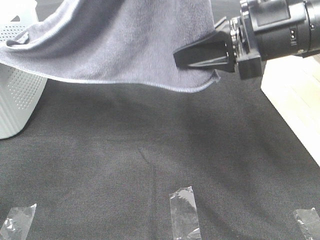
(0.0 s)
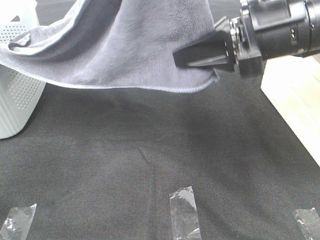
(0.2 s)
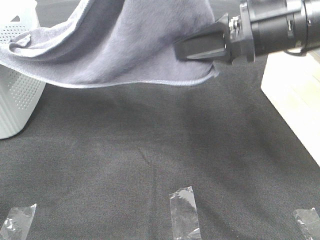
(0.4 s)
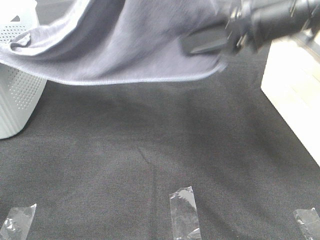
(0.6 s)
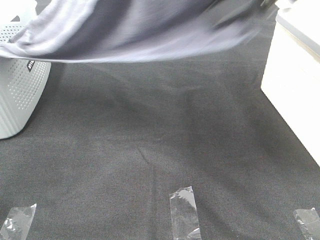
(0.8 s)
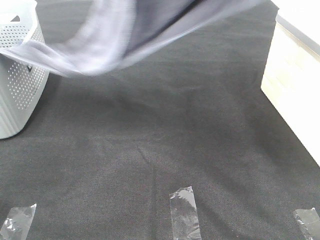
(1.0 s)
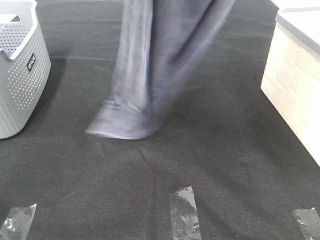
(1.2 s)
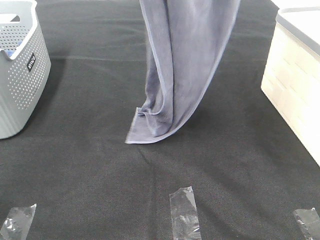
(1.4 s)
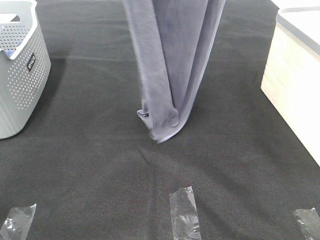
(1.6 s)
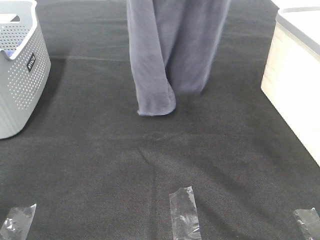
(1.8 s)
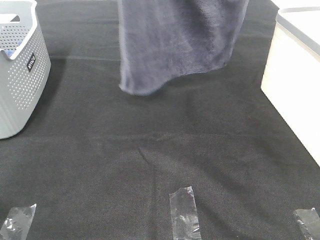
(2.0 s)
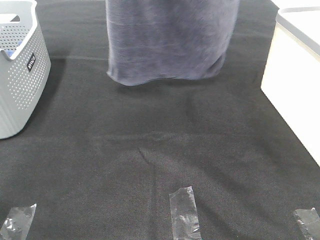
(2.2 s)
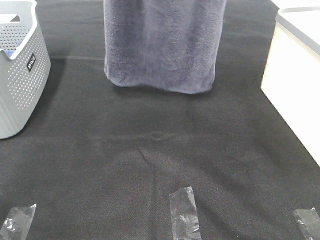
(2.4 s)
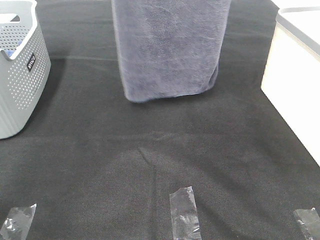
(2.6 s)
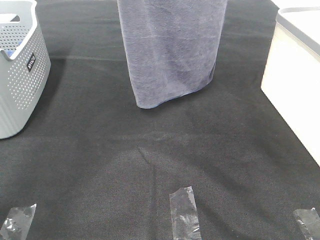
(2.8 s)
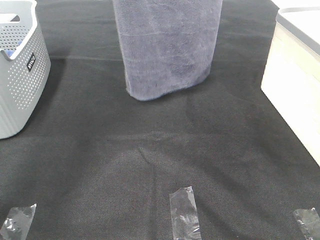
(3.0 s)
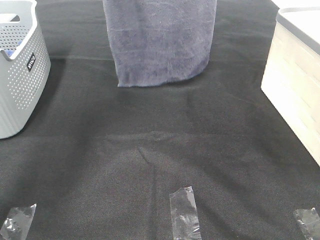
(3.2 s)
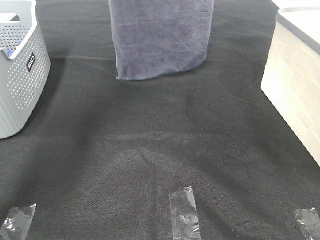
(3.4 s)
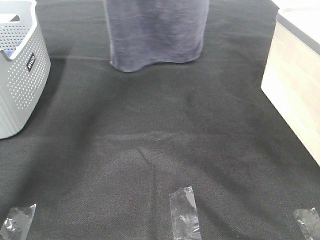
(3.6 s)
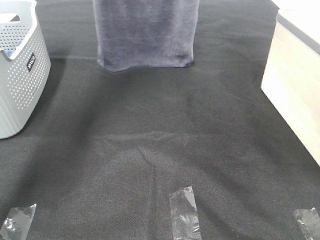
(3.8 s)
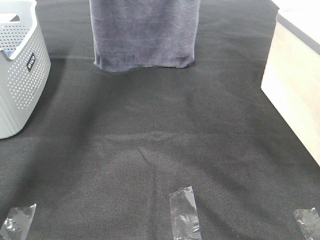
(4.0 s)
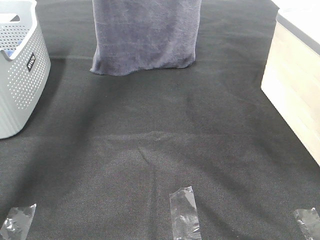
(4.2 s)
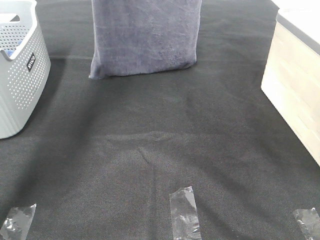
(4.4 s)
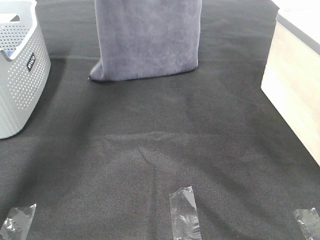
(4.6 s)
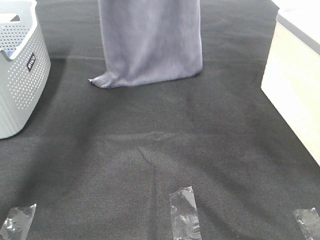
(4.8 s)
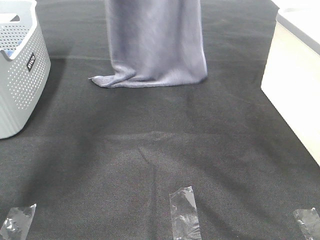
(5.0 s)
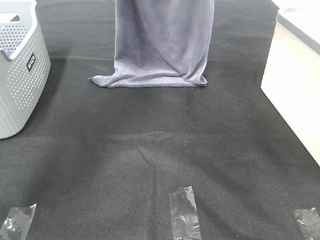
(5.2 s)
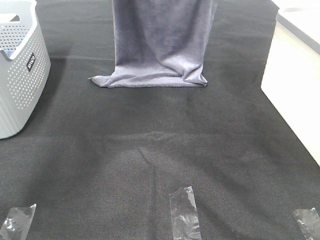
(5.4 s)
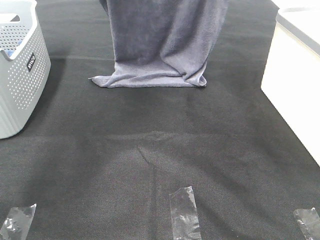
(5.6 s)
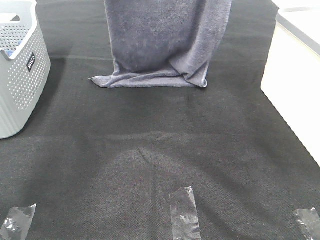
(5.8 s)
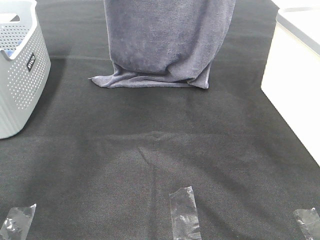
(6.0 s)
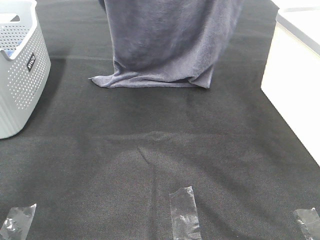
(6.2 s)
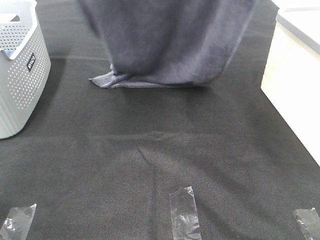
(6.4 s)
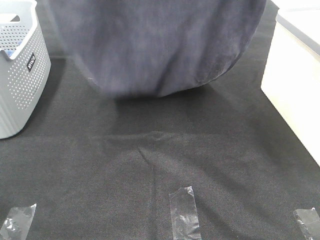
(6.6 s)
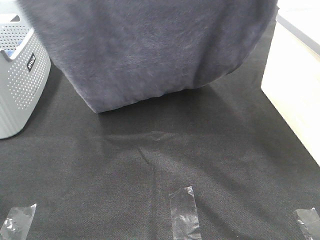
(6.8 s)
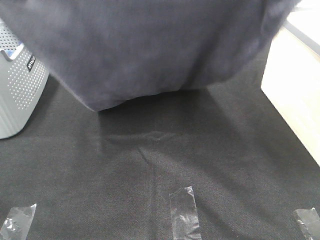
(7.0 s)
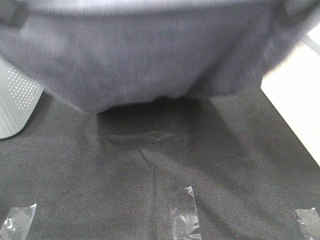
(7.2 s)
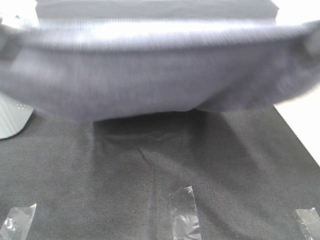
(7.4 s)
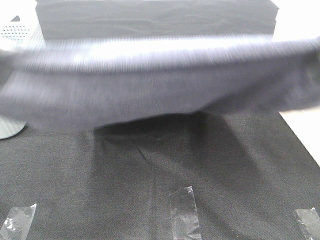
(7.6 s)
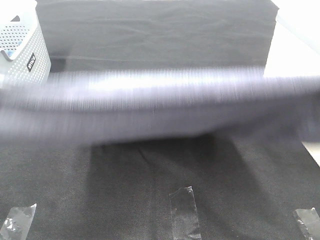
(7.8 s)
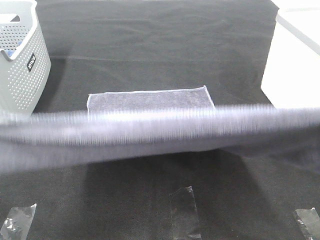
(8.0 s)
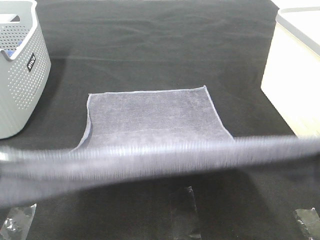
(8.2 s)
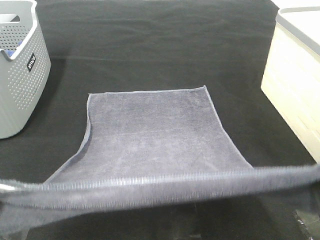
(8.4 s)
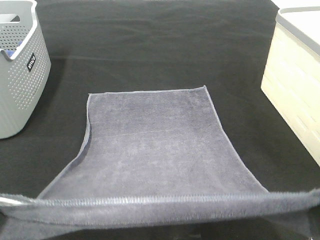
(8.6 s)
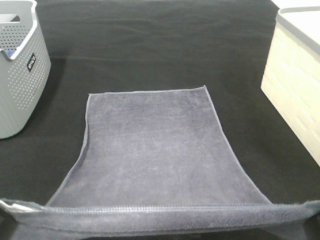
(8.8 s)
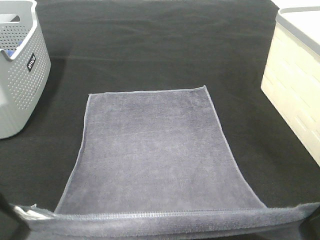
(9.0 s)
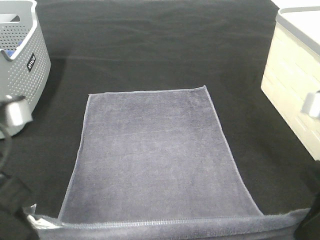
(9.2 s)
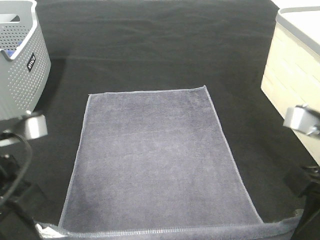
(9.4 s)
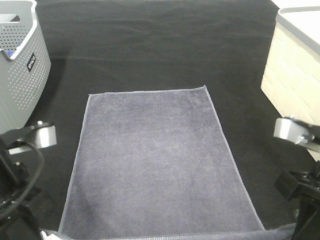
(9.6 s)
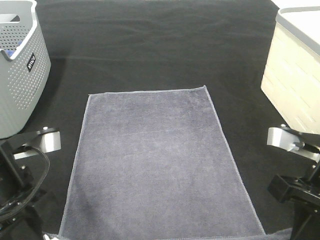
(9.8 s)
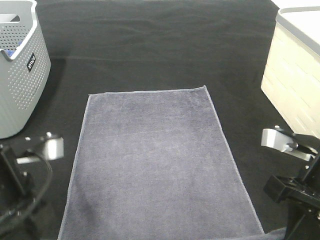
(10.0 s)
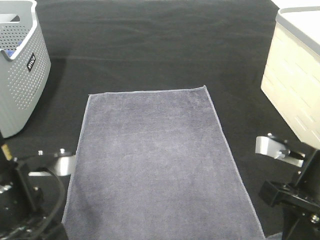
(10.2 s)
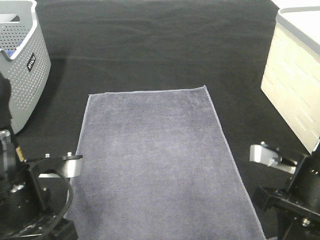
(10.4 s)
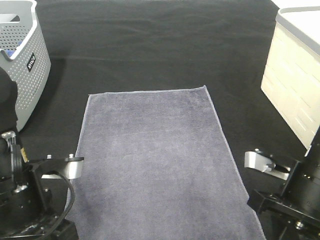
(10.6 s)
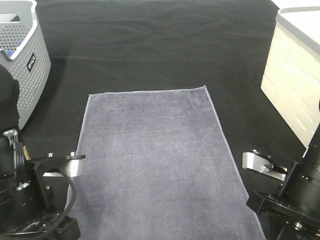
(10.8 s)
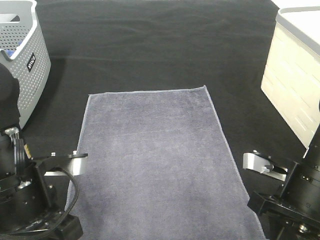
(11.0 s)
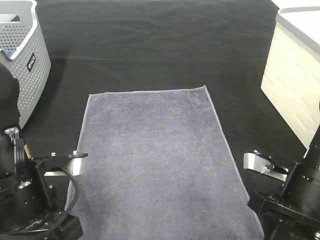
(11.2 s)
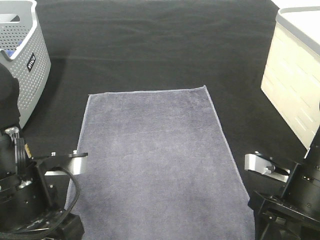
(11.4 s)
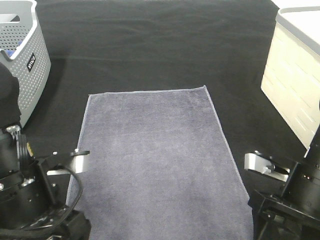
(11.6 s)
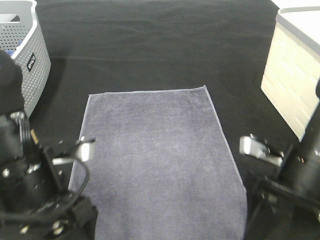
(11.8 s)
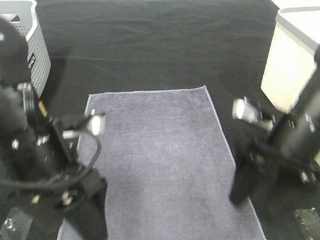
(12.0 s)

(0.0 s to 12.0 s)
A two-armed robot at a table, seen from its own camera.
Task of the whole recording: Remove the towel and place it.
Step, 1.6 s - 7.0 s: Left hand: spread the grey towel flat on the table.
Step, 1.6 s - 7.0 s: Right hand: spread the grey towel flat on the table.
0.0 s - 1.6 s: The right gripper moves upward, about 20 cm. Meanwhile the left gripper is displaced forward and to the left by roughly 10 cm.
1.6 s - 3.0 s: The right gripper is displaced forward by approximately 10 cm; the left gripper heads forward and downward, covering approximately 15 cm.
3.0 s - 4.4 s: Both grippers travel together forward, roughly 5 cm.
4.4 s - 6.0 s: Both grippers move backward, roughly 10 cm.
6.0 s - 7.6 s: The grippers both shift backward by some 30 cm.
7.6 s - 9.0 s: Both grippers travel together downward, about 10 cm.
9.0 s - 10.4 s: The right gripper is displaced downward and forward by about 15 cm. The left gripper is displaced downward by about 10 cm.
10.4 s - 12.0 s: The right gripper is displaced forward by approximately 5 cm, and opens. Meanwhile the left gripper moves approximately 5 cm, and opens its fingers.

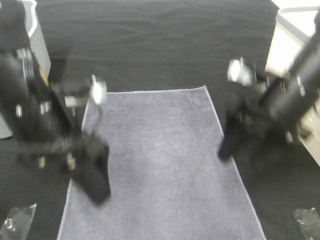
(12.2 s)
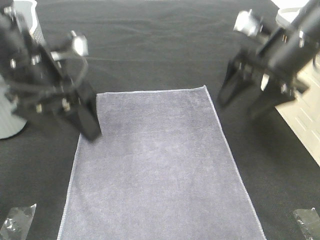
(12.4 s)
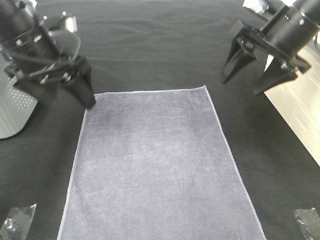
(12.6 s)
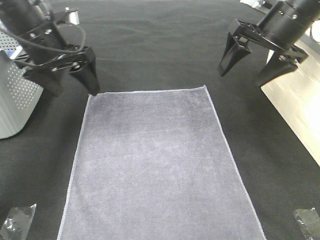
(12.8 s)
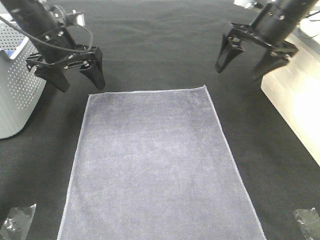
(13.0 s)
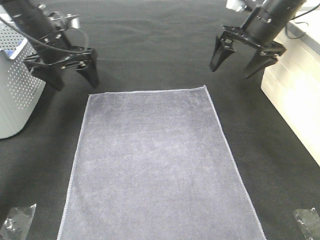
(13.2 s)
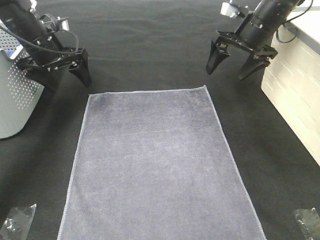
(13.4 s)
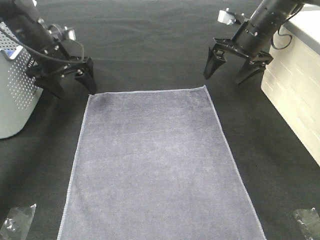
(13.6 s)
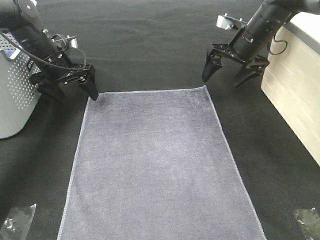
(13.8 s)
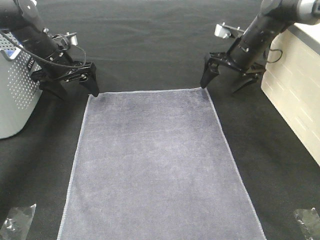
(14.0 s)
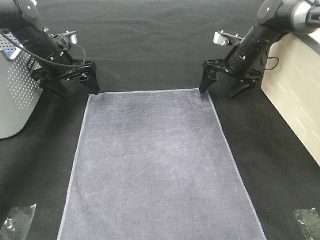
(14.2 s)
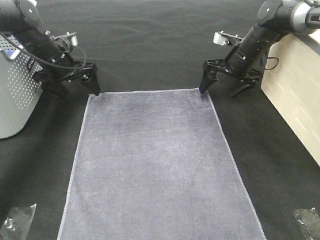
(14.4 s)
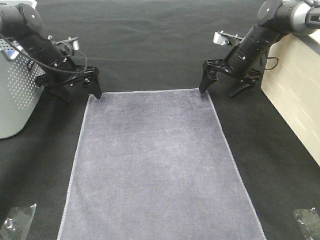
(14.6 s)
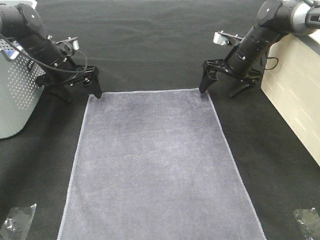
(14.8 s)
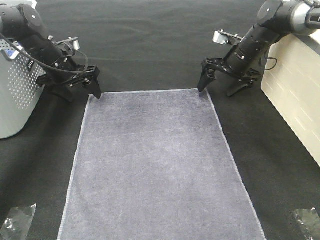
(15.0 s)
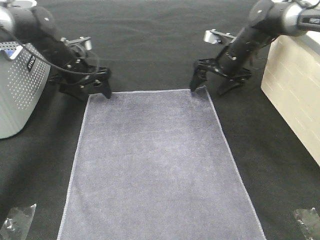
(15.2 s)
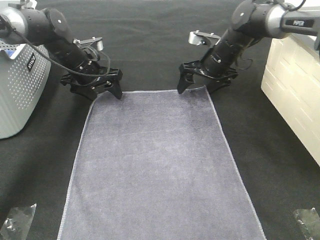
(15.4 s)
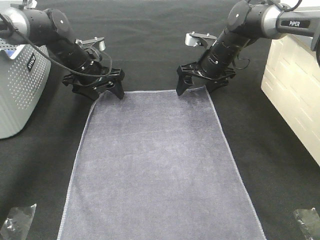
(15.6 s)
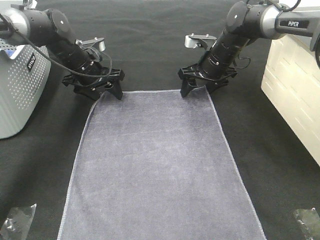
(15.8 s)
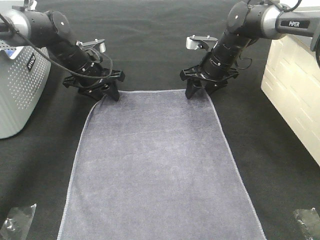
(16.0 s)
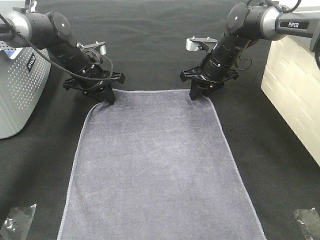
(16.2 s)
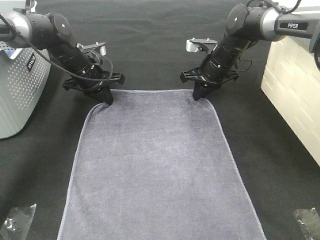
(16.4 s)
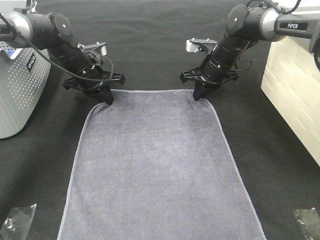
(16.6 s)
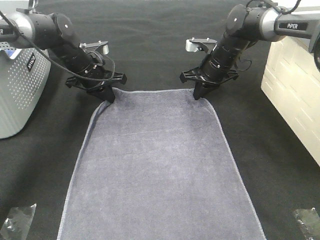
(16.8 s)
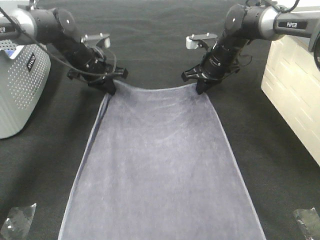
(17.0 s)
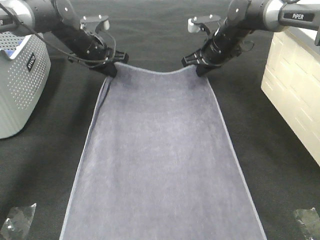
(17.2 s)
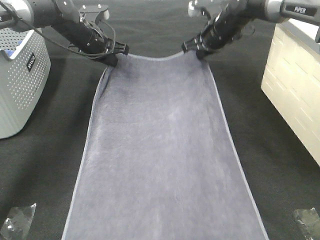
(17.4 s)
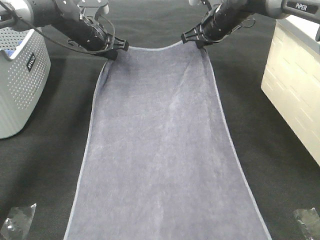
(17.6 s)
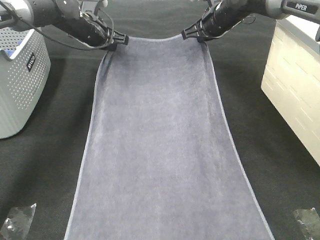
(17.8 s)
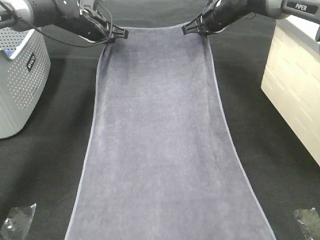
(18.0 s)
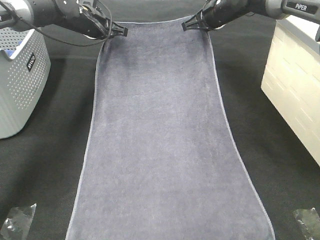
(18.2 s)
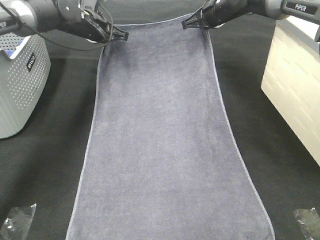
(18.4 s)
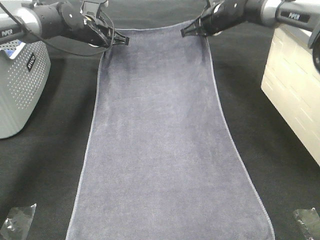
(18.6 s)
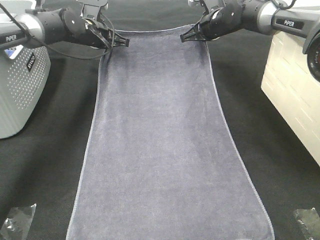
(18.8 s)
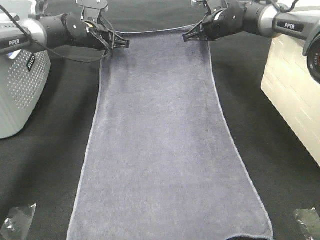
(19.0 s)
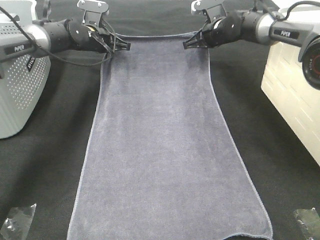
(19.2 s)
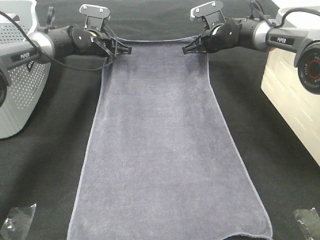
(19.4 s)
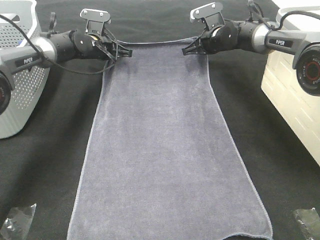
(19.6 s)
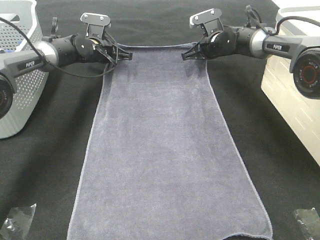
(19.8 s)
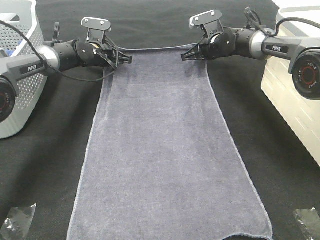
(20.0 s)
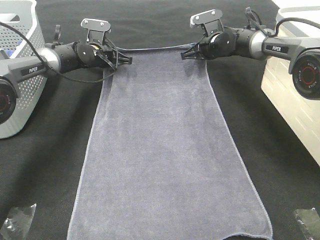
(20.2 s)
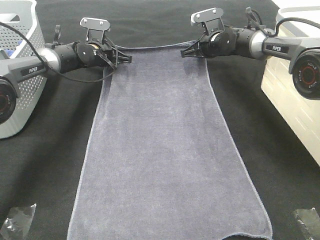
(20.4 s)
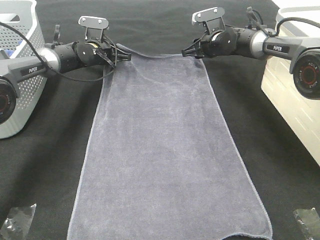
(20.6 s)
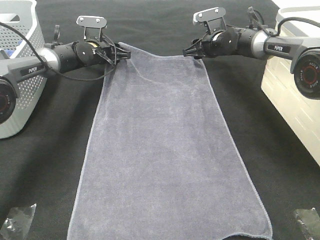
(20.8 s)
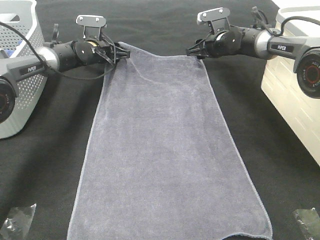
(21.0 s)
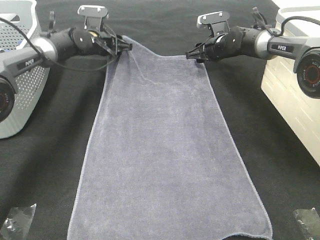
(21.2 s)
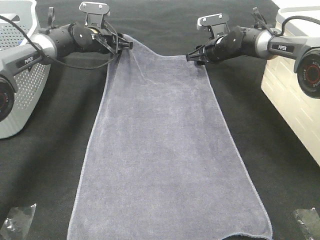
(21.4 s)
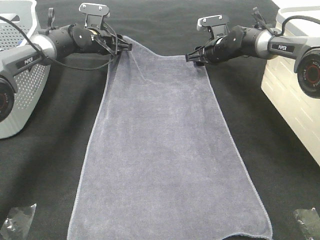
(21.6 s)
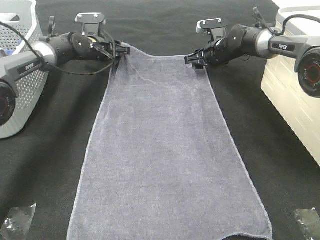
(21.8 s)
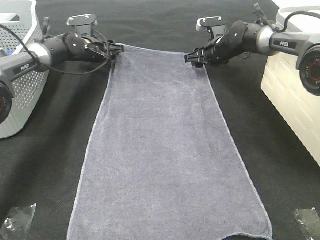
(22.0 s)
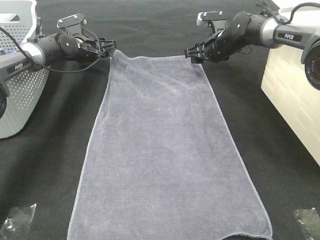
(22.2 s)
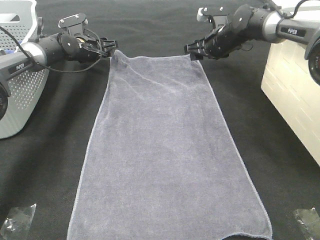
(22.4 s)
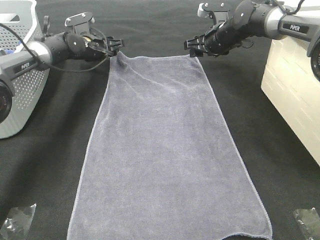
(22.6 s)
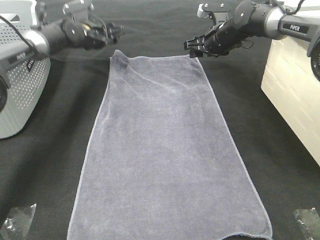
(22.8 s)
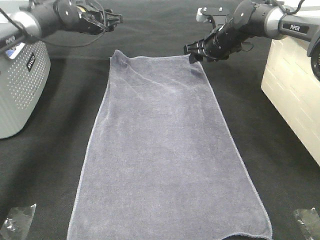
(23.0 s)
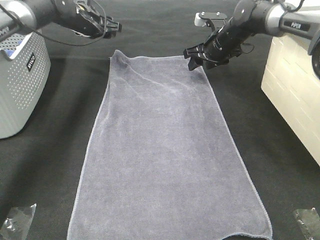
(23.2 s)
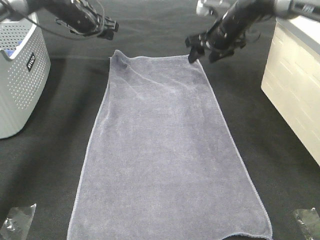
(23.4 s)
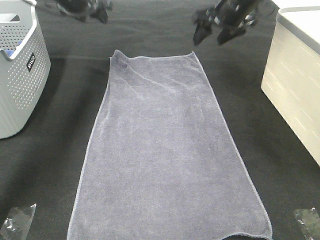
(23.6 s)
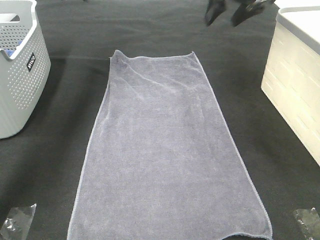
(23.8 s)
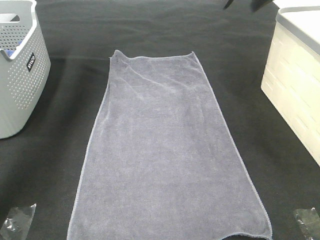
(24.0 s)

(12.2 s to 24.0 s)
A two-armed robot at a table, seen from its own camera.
Task of the whole recording: Remove the towel and place it.
Step, 12.2 s - 14.4 s: Right hand:adjust the gray towel.
Step, 12.2 s - 15.6 s: Left hand:adjust the gray towel.
12.2 s - 13.6 s: The grippers both shift forward by approximately 25 cm.
13.6 s - 15.2 s: The left gripper shifts by some 5 cm; the right gripper is displaced downward by roughly 5 cm.
15.2 s - 16.6 s: The right gripper closes. Meanwhile the left gripper closes its fingers.
16.6 s - 18.2 s: Both grippers move upward and forward, approximately 10 cm.
18.2 s - 19.6 s: Both grippers travel together downward, some 10 cm.
19.6 s - 21.0 s: The right gripper opens up. The left gripper opens its fingers.
21.0 s - 22.6 s: The grippers make only small movements.
22.6 s - 24.0 s: The right gripper heads upward and backward, covering roughly 25 cm; the left gripper heads upward, covering approximately 25 cm.
